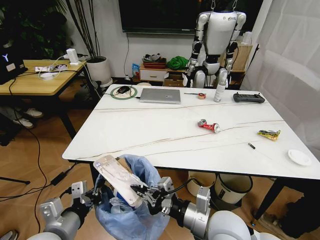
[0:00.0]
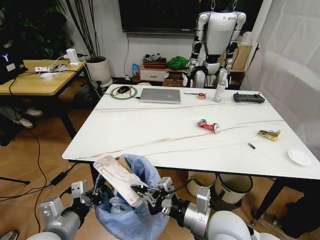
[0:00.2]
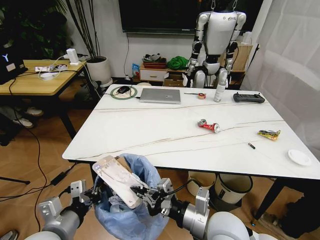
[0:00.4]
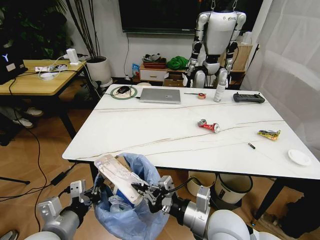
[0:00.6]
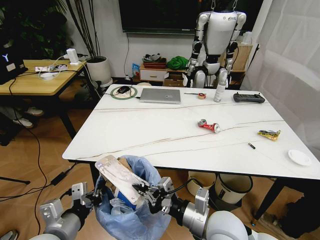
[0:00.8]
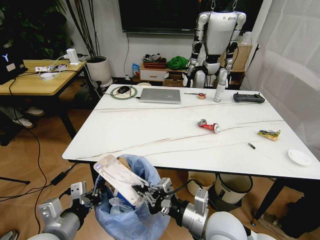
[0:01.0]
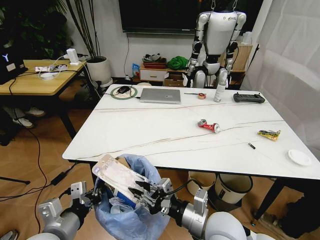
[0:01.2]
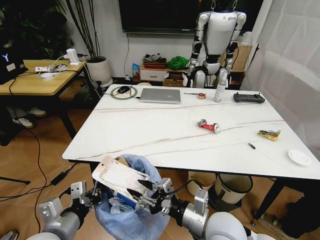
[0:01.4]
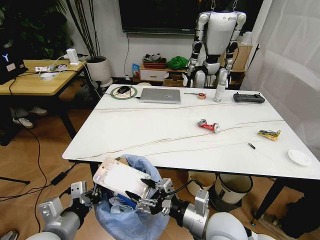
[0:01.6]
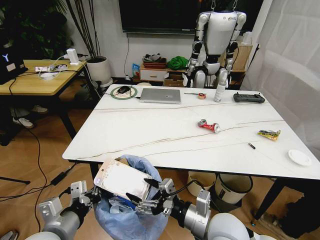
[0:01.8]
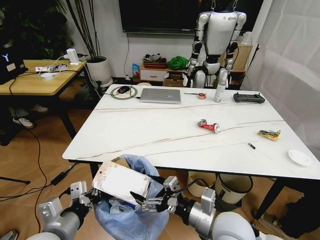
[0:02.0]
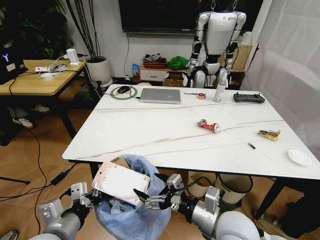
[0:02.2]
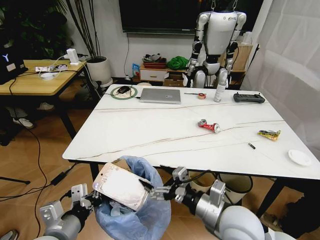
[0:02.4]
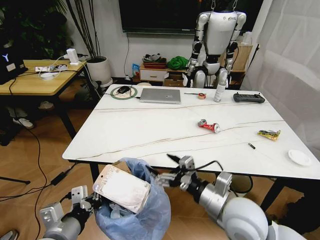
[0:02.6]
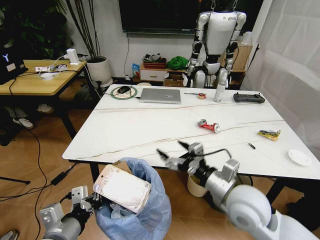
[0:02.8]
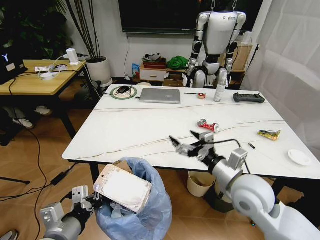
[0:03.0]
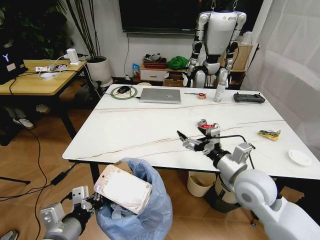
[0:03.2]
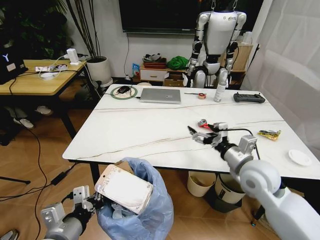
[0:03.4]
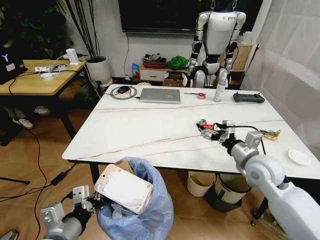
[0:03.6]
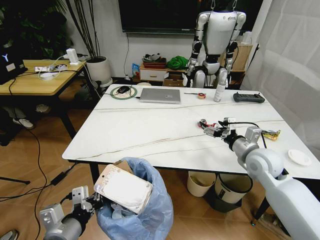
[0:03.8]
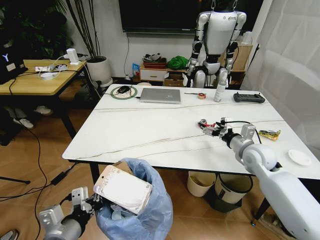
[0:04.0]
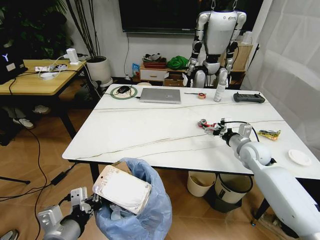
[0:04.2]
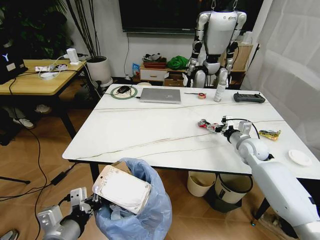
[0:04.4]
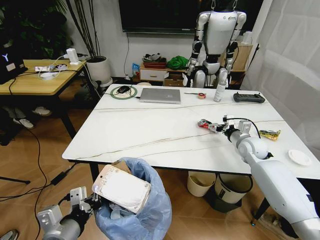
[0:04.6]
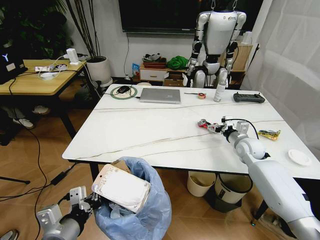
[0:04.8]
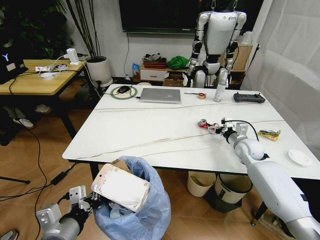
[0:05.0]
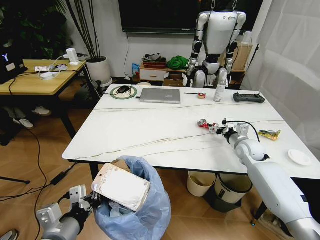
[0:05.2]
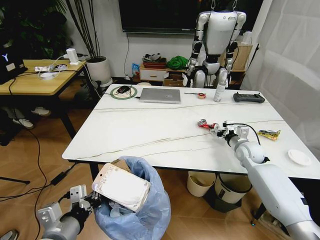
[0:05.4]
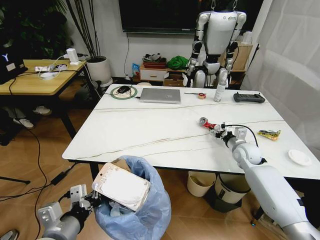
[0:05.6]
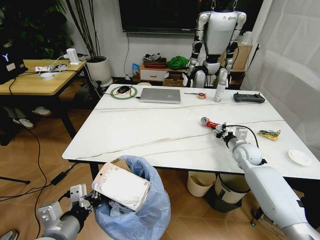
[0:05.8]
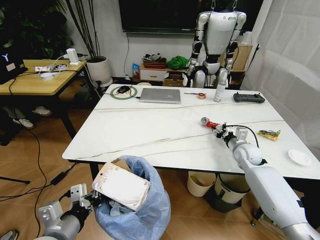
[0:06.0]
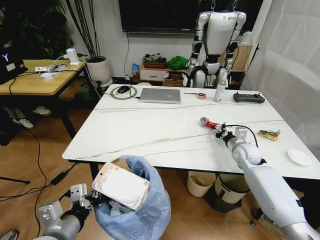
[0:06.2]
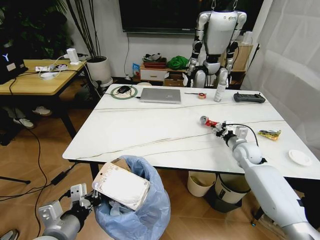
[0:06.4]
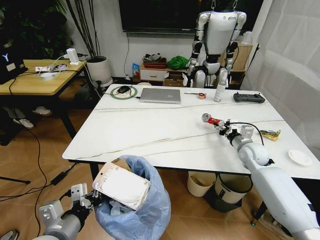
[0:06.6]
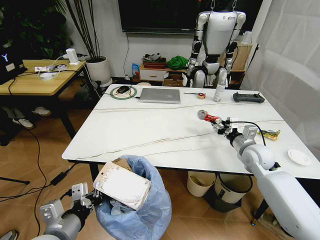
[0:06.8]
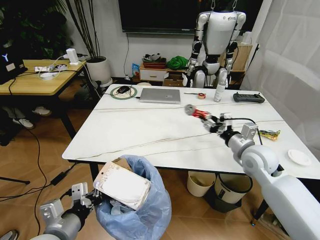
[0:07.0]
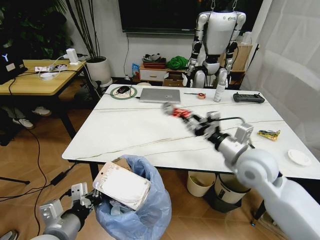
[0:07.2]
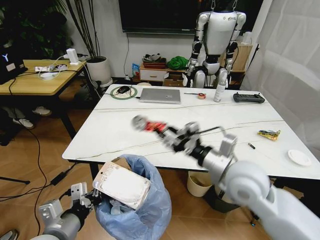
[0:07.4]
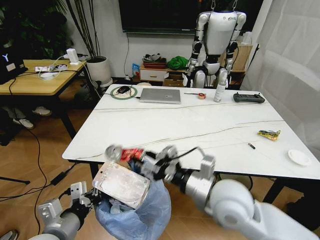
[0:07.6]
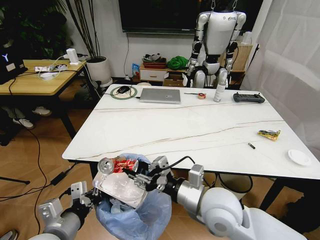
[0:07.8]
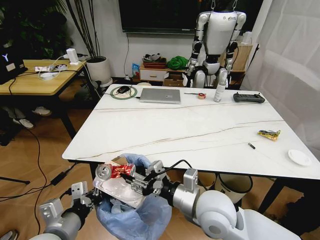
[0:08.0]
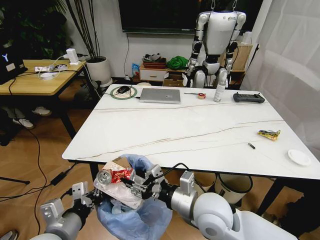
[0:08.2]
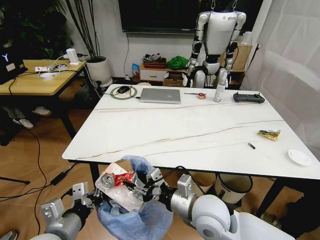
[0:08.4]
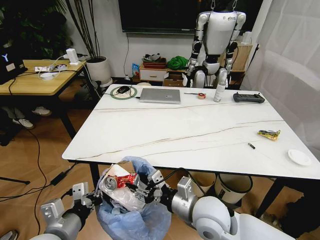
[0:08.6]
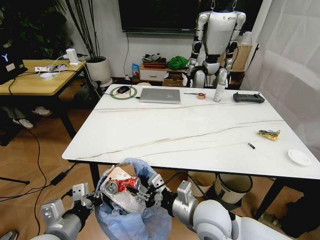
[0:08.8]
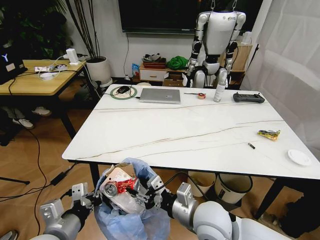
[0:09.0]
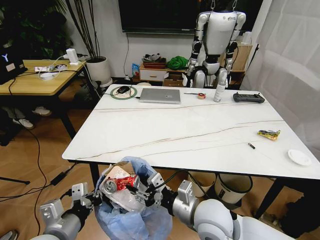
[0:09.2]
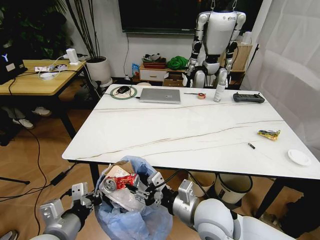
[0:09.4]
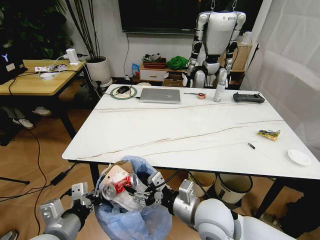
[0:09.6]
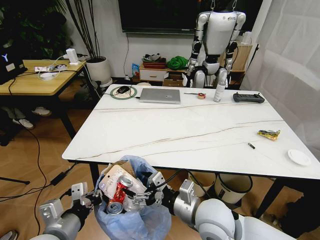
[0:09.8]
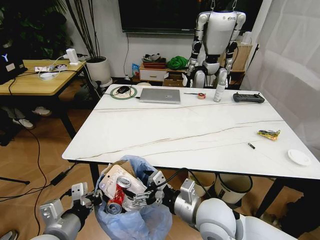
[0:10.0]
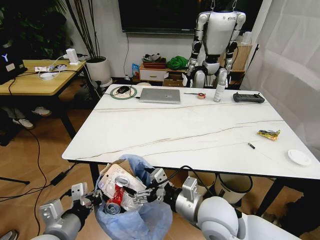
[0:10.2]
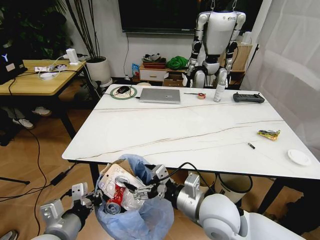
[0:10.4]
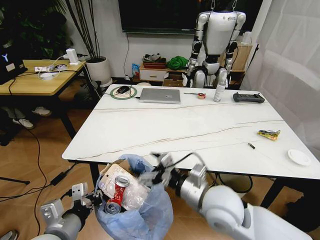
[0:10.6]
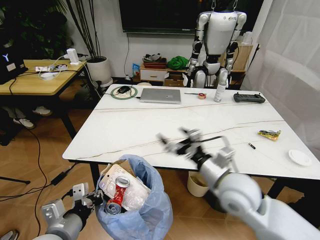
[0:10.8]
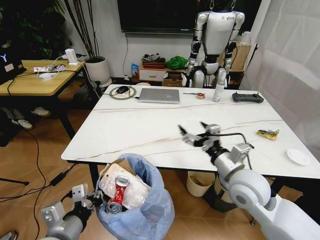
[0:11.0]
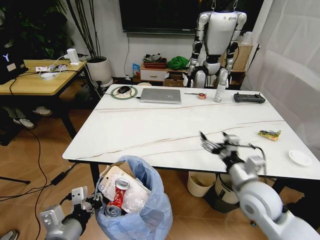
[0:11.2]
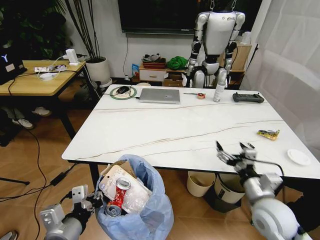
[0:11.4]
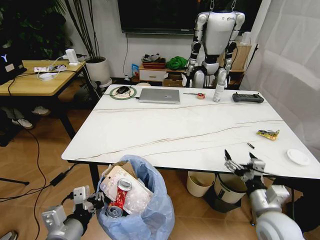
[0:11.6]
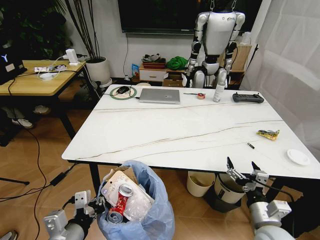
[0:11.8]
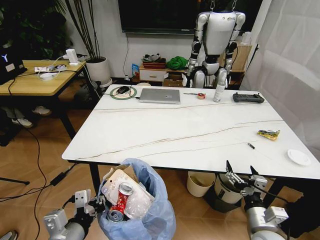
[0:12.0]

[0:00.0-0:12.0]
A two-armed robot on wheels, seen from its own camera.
Task of the whole recording: Pick up the trash bin and place the trash from the table into it.
0:00.0 to 0:01.6: The right gripper opens up.
0:01.6 to 0:03.0: The right gripper travels forward, to the right and upward by approximately 10 cm.
0:03.0 to 0:04.4: The right gripper is displaced forward and to the right by roughly 25 cm.
0:04.4 to 0:06.0: The right gripper closes.
0:06.0 to 0:07.6: The right gripper goes about 35 cm backward, to the left and upward.
0:07.6 to 0:09.0: The right gripper is displaced downward by about 10 cm.
0:09.0 to 0:10.4: The right gripper opens.
0:10.4 to 0:12.0: The right gripper moves to the right and downward, approximately 20 cm.

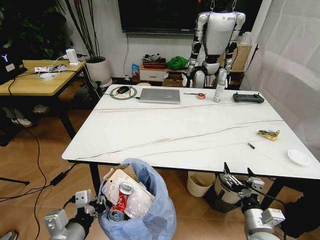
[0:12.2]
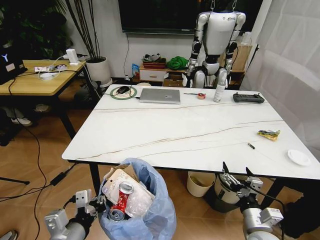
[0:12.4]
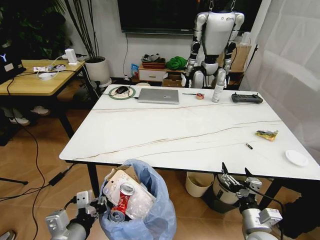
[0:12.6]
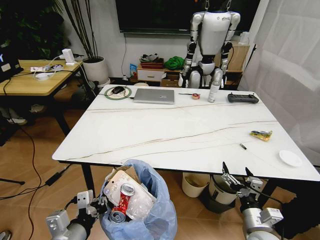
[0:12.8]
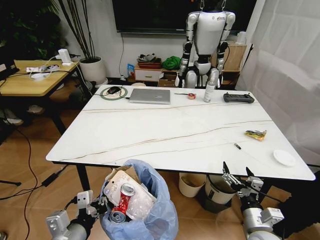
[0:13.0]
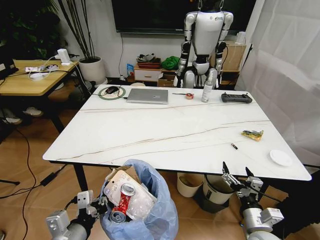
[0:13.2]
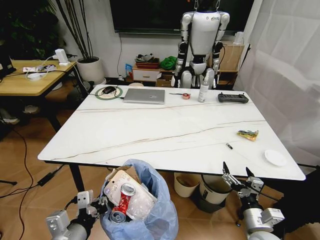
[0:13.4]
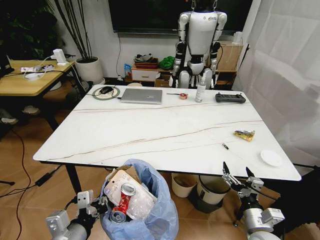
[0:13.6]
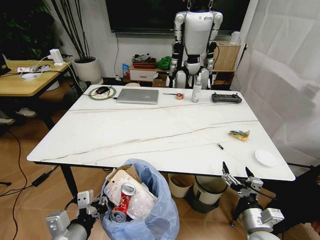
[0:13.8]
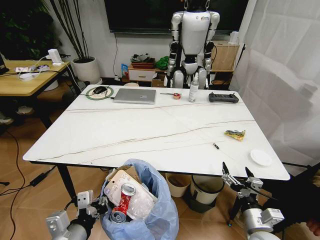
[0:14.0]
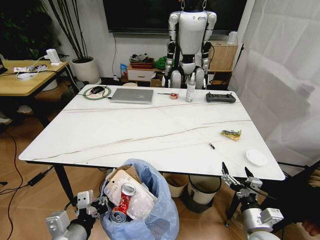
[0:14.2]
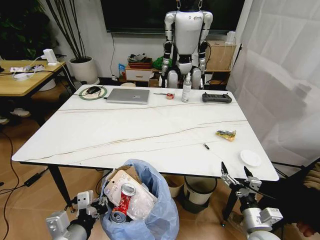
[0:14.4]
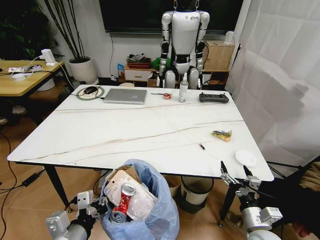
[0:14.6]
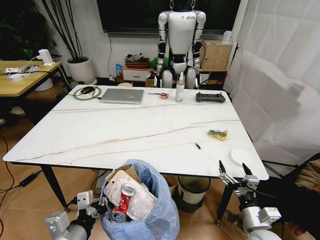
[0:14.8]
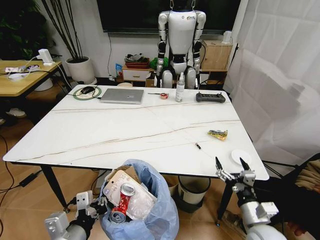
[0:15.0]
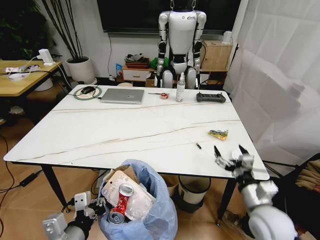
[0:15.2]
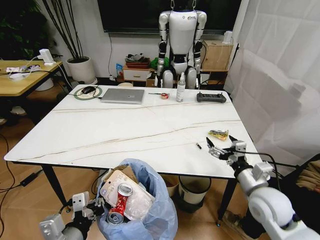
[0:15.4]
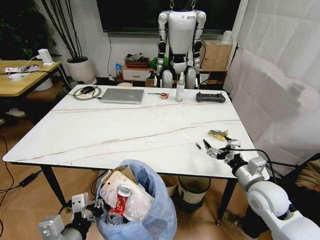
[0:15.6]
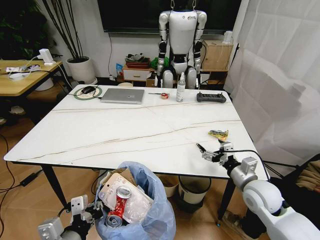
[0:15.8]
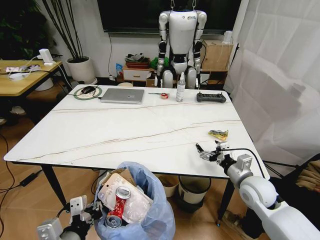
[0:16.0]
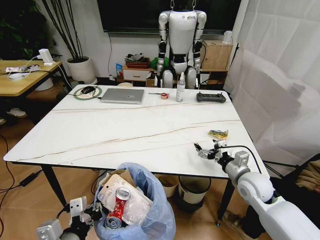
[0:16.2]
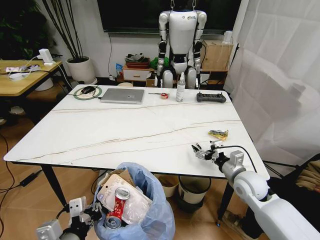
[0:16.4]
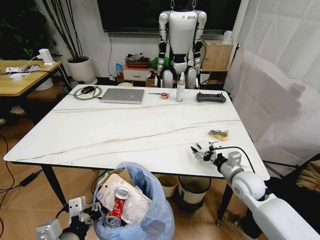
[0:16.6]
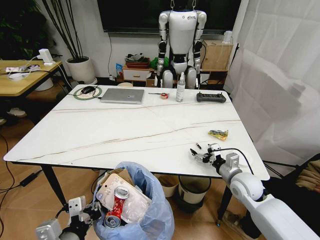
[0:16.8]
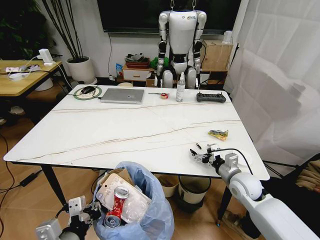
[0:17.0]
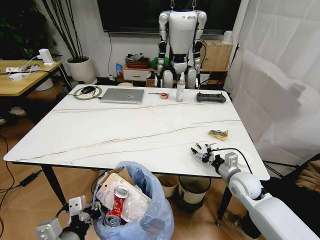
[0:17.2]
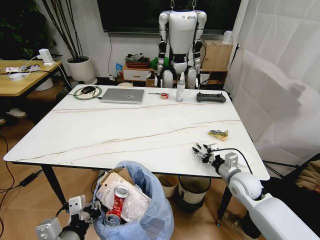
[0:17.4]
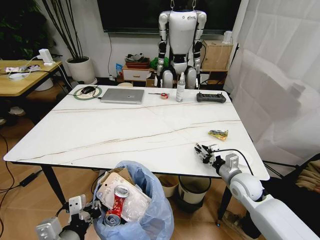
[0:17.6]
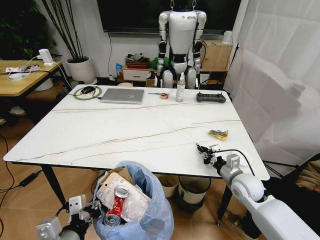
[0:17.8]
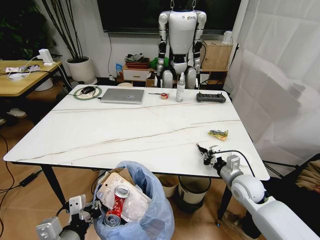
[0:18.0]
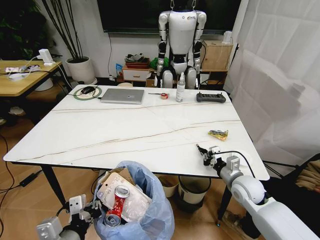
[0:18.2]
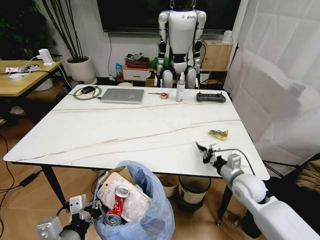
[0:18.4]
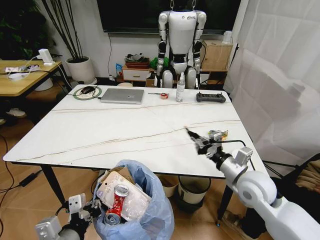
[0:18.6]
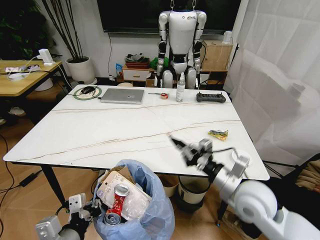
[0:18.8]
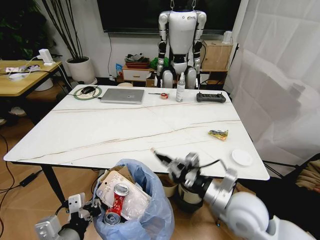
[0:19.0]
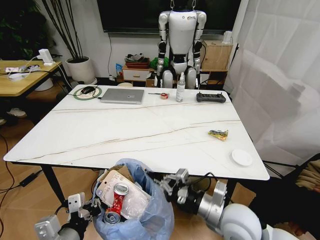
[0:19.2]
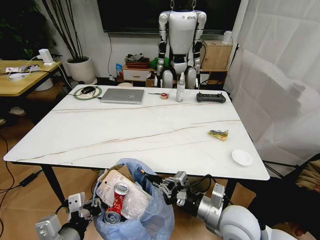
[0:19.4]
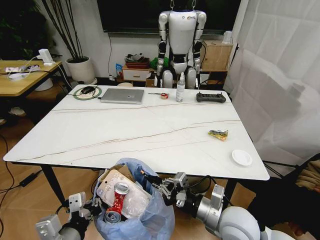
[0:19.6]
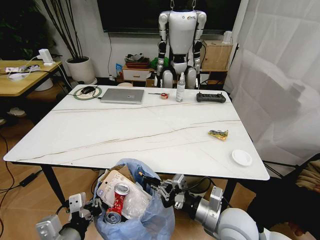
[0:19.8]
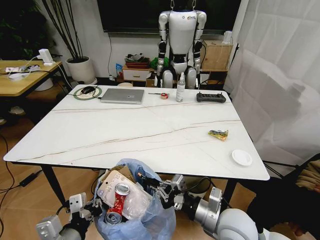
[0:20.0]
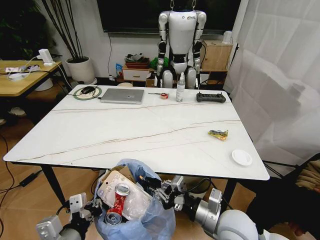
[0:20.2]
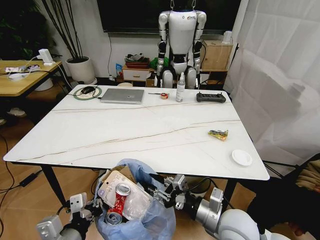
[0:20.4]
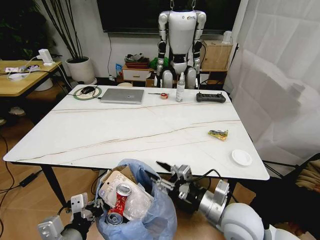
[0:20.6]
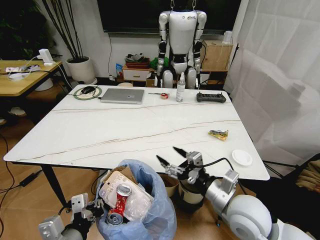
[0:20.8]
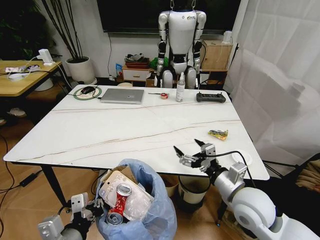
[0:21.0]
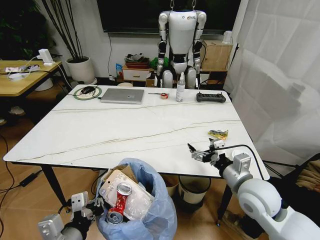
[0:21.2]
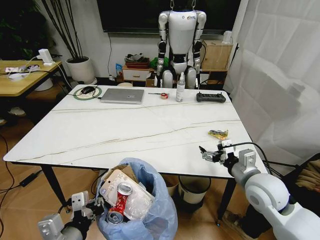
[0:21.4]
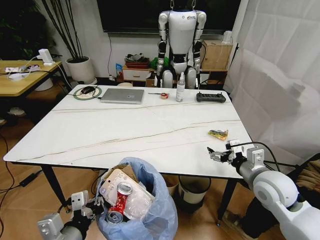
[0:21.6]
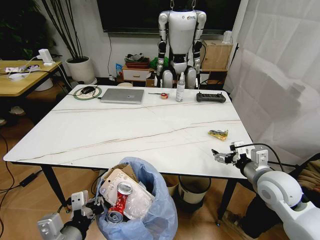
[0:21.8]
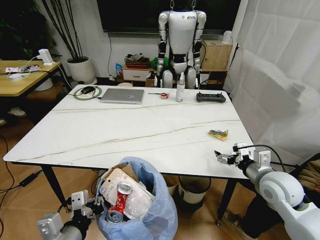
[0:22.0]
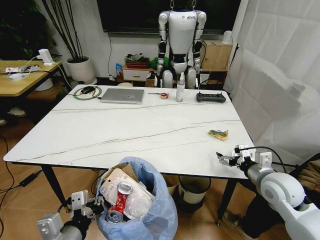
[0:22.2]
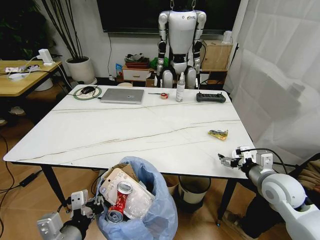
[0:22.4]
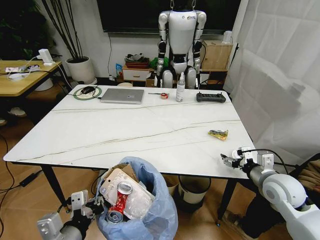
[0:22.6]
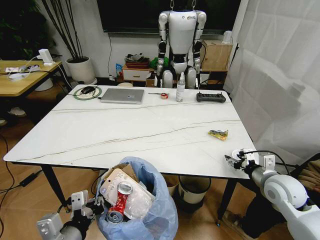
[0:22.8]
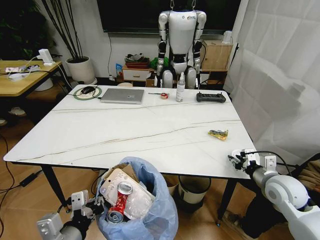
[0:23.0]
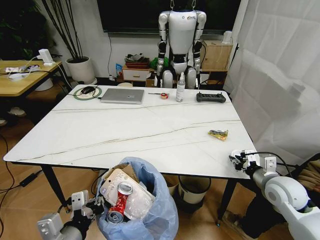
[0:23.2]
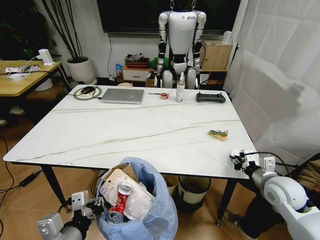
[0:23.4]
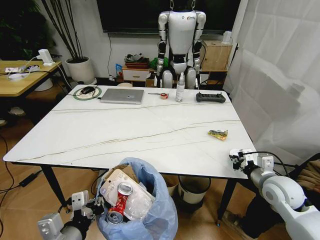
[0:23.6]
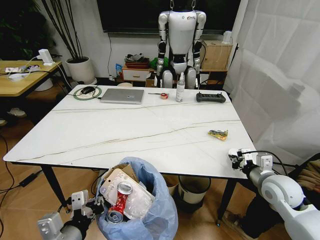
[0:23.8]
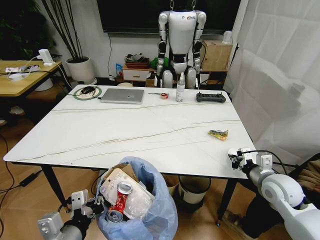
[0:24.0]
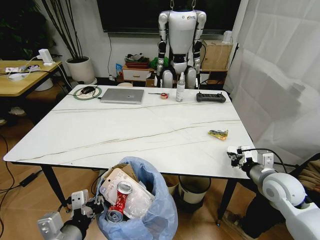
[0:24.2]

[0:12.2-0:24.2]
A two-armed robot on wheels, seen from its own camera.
Task of the whole recording: Pick up the trash bin and place the trash from the table into it.
0:13.8 to 0:15.2: The right gripper goes approximately 5 cm upward.
0:15.2 to 0:16.6: The right gripper shifts roughly 10 cm forward.
0:16.6 to 0:18.2: The right gripper closes up.
0:18.2 to 0:19.8: The right gripper travels backward, to the left and upward by some 20 cm.
0:19.8 to 0:21.2: The right gripper shifts some 10 cm to the right and forward, and opens up.
0:21.2 to 0:22.6: The right gripper goes approximately 10 cm to the right.
0:22.6 to 0:24.2: The right gripper closes its fingers.
